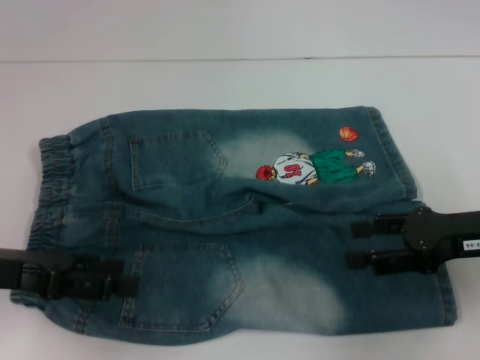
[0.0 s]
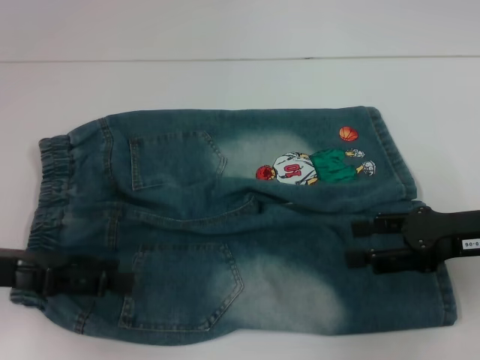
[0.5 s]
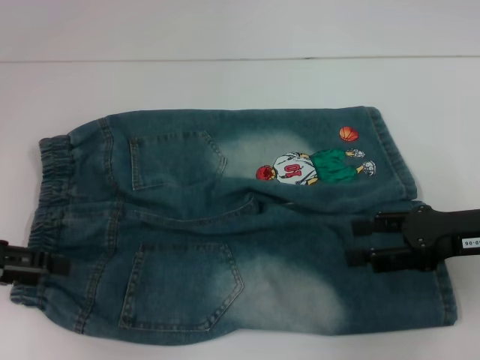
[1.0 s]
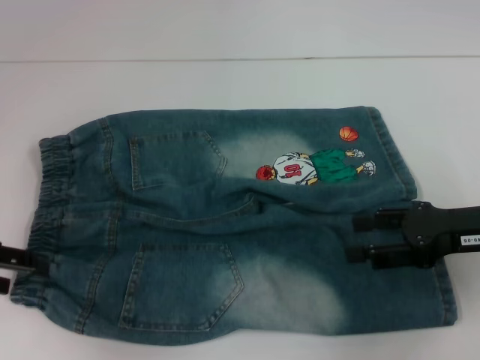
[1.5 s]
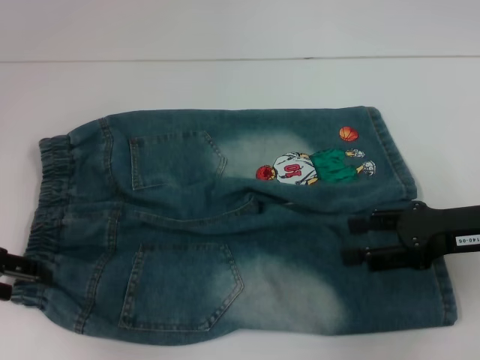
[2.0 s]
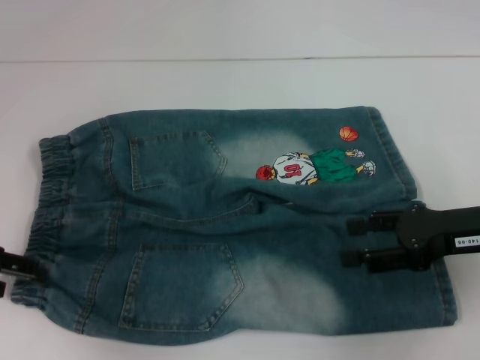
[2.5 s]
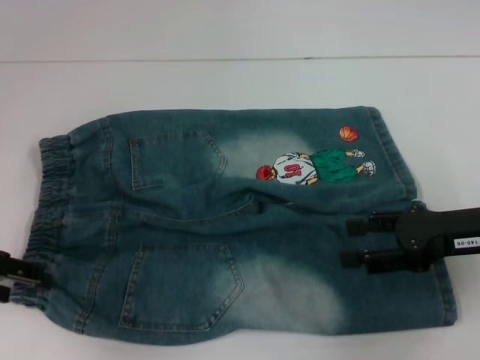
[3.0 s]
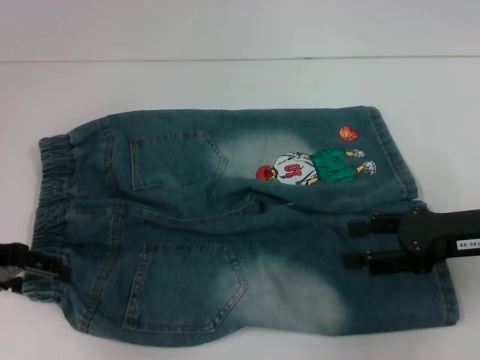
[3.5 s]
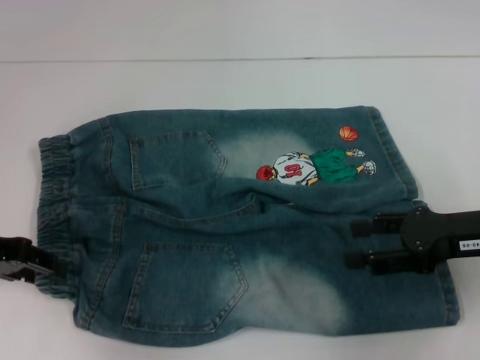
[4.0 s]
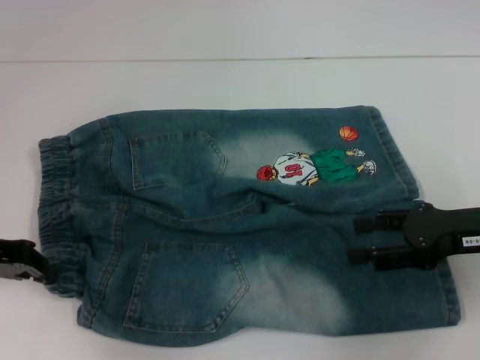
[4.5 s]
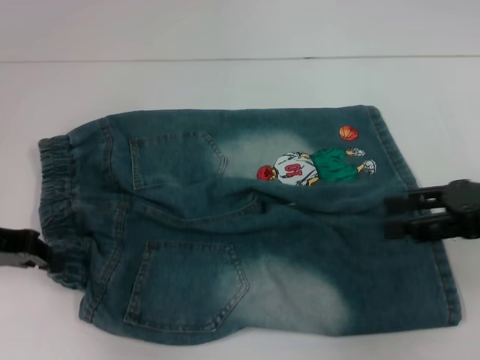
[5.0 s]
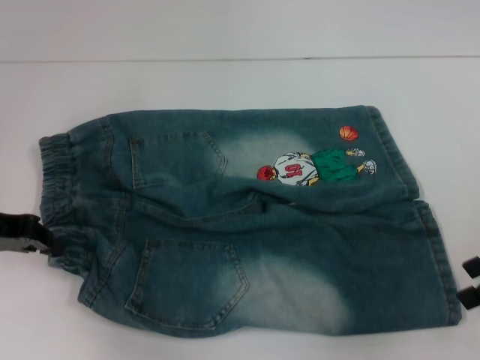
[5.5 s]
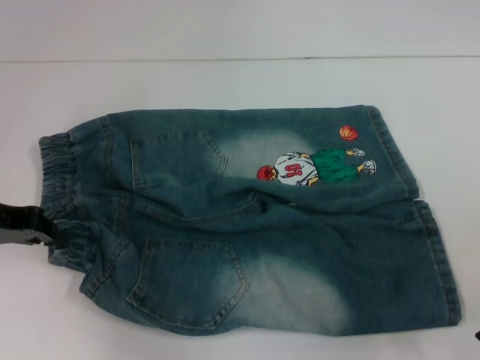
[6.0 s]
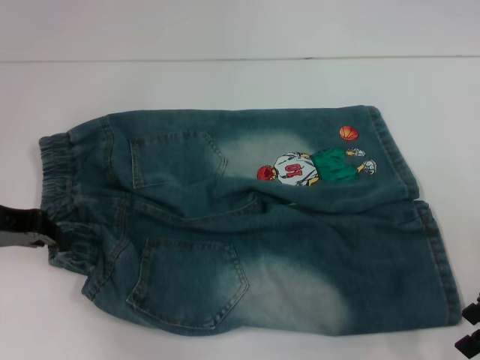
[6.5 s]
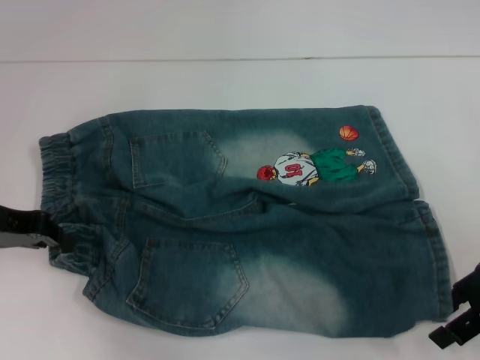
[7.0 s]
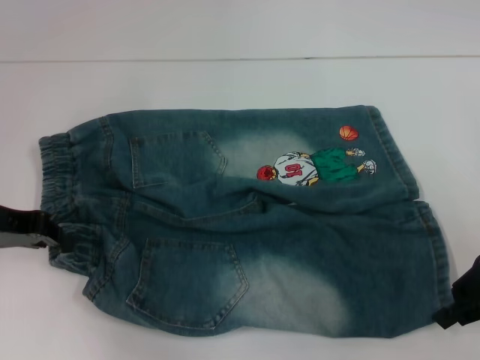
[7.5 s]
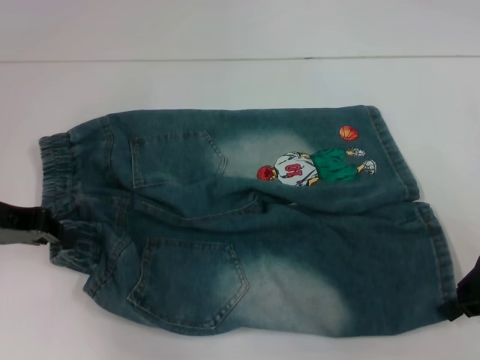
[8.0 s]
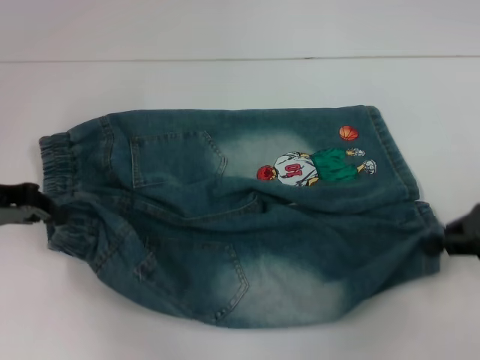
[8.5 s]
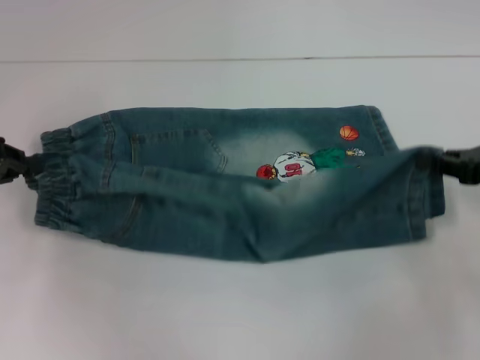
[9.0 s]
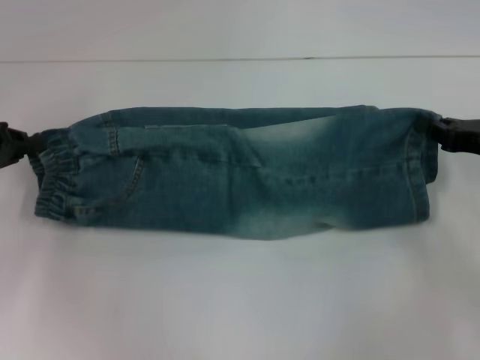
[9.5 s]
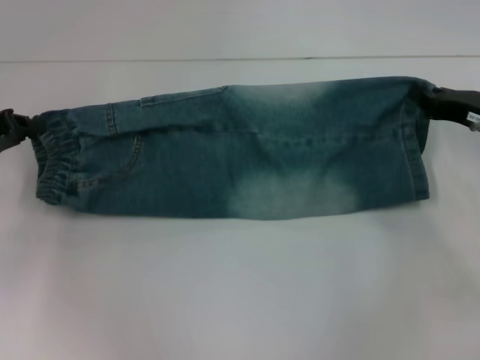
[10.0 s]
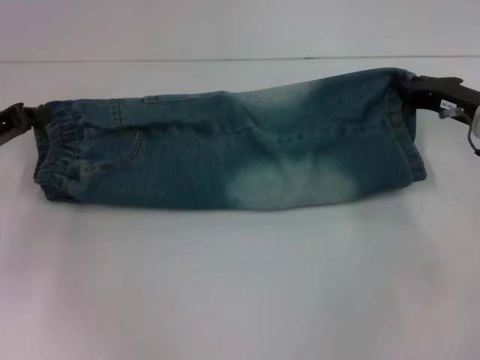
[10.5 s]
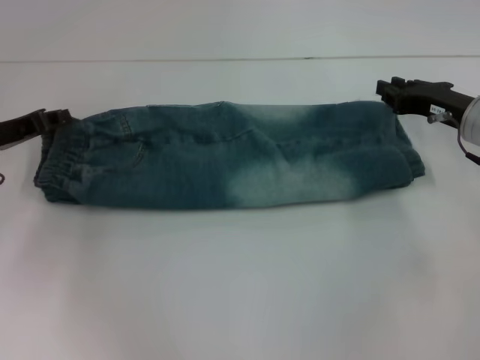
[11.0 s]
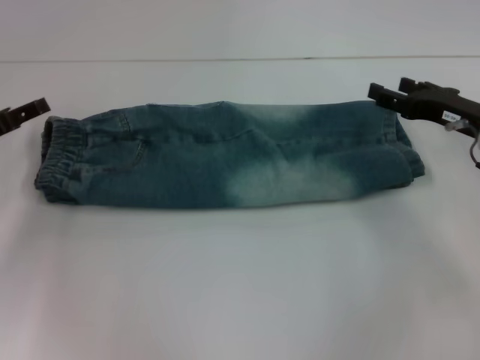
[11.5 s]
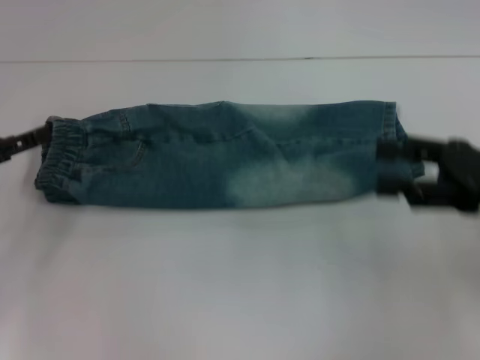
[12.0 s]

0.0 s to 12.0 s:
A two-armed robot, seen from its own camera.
Step, 0.0 to 3.5 s: Hold the lower left waistband with your left hand.
Step, 4.0 to 7.5 s: Grab the lower right pant leg with your right hand.
Step, 8.0 to 10.5 s: Fold upward with your left hand.
0.0 to 2.0 s: The left gripper shifts by roughly 5 cm.
2.0 to 4.0 s: There are only small adjustments of the grippers.
4.0 to 6.0 s: The right gripper moves to the right, about 5 cm. The left gripper closes its fingers.
6.0 to 8.0 s: The right gripper closes its fingers.
8.0 to 10.0 s: The right gripper moves forward, roughly 5 cm.
10.0 to 12.0 s: The right gripper shifts approximately 10 cm backward and upward, and opens its fingers. The left gripper opens up.

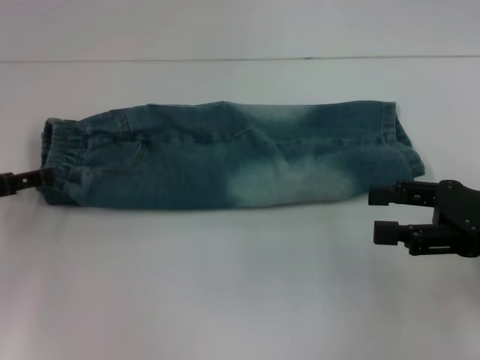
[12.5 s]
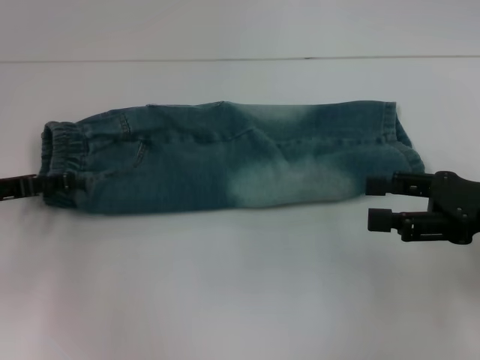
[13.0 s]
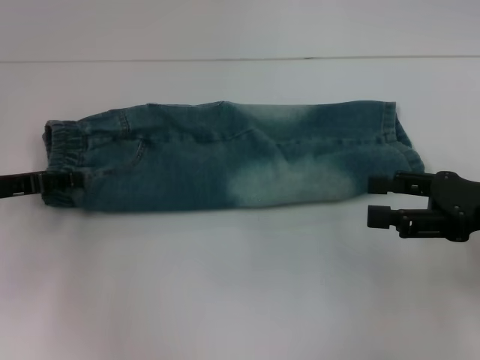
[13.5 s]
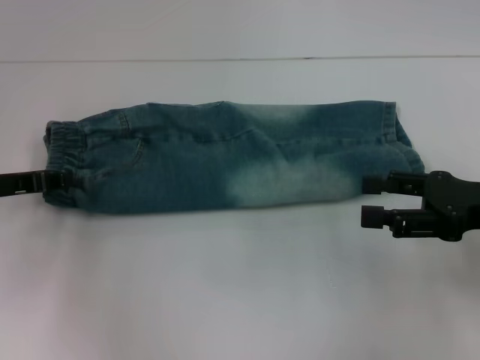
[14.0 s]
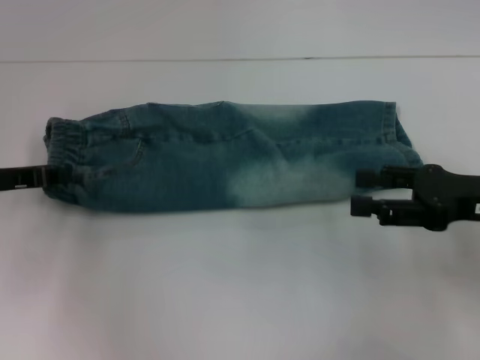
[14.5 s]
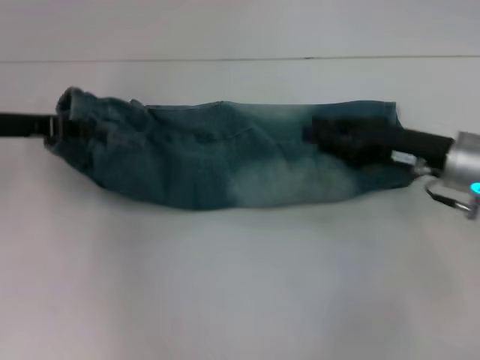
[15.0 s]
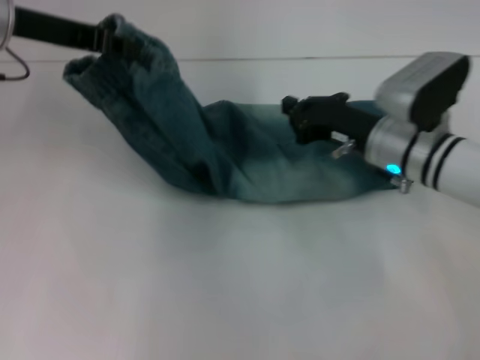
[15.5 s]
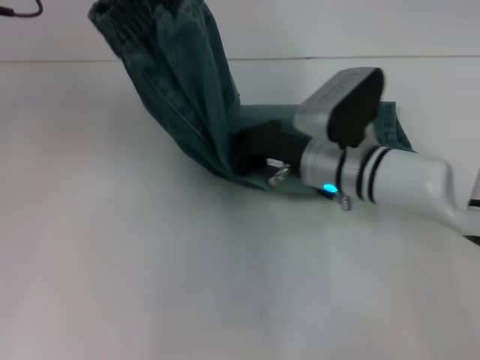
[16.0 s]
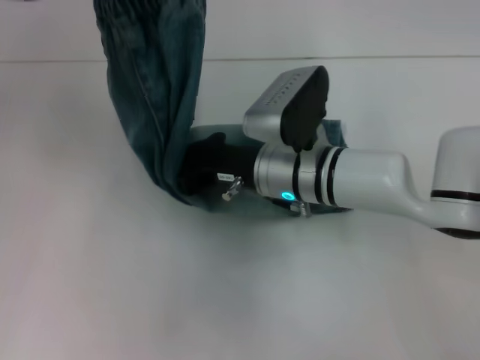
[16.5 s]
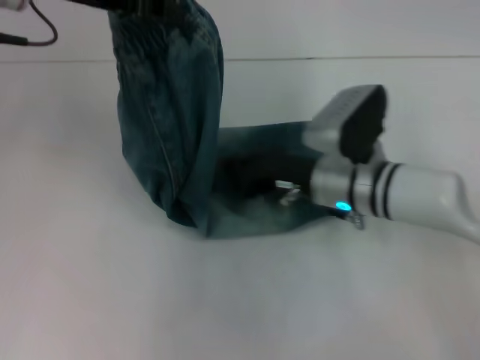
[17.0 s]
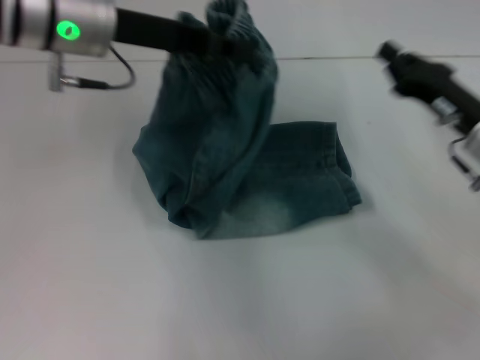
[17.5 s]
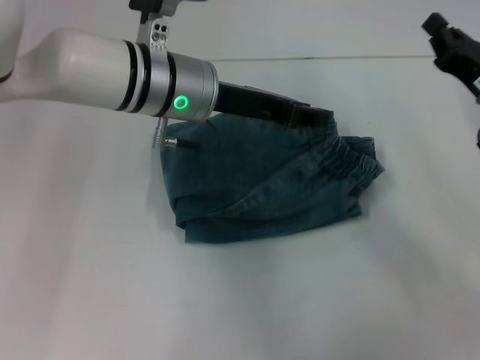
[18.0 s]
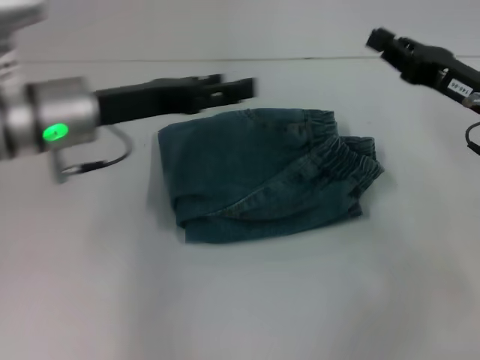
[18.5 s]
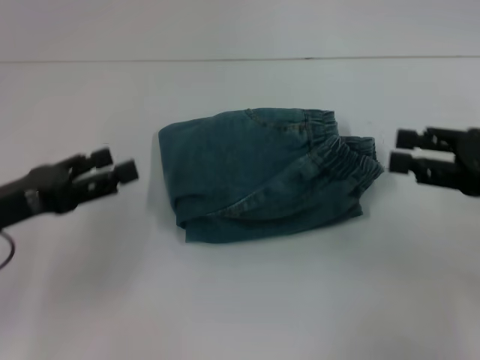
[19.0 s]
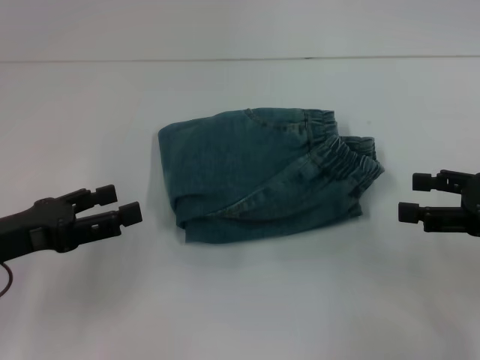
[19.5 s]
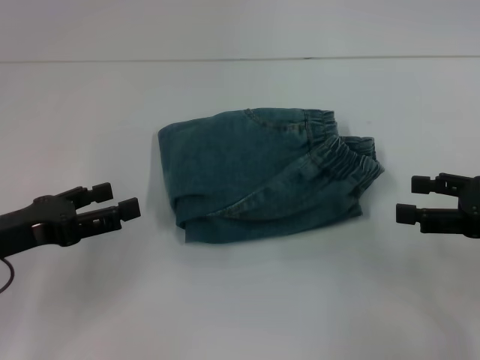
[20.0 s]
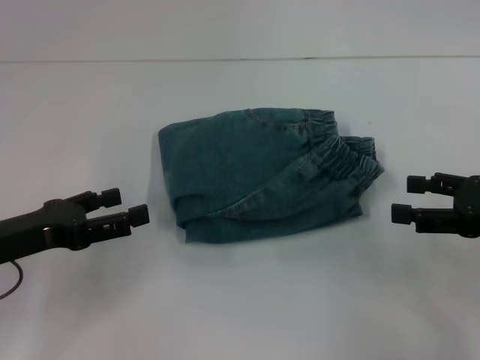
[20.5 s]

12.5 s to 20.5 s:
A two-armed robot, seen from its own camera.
Step, 14.5 to 16.5 s: Press the middle of the pants with your right hand.
Step, 17.0 to 17.5 s: Fold to the right with your left hand.
12.5 to 14.5 s: The left gripper closes its fingers.
14.5 to 16.5 s: The right gripper heads to the left, covering some 25 cm, and closes; the left gripper travels upward and to the right by about 25 cm.
16.5 to 18.5 s: The left gripper is displaced downward by some 15 cm, and opens its fingers, while the right gripper shifts about 20 cm to the right.
18.5 to 20.5 s: The right gripper goes roughly 10 cm backward and to the right, and opens. The left gripper is displaced backward, to the left and downward by approximately 15 cm.
